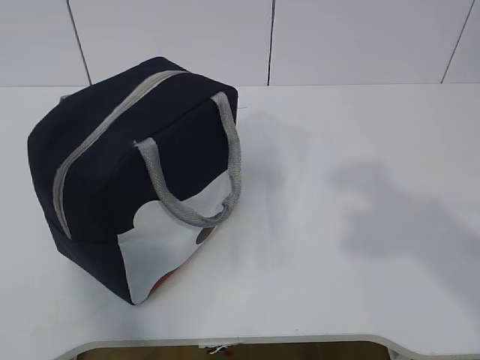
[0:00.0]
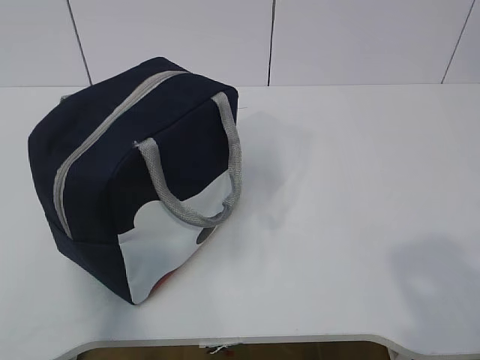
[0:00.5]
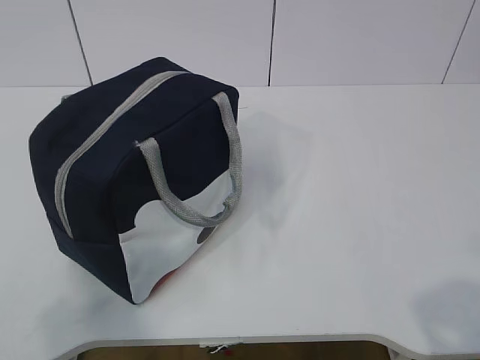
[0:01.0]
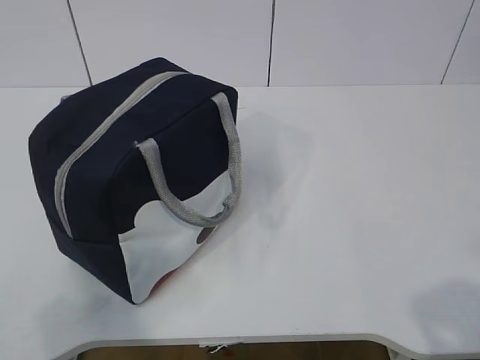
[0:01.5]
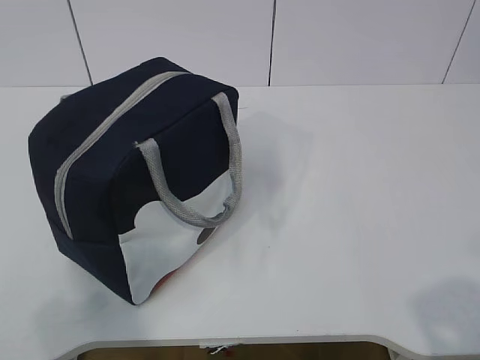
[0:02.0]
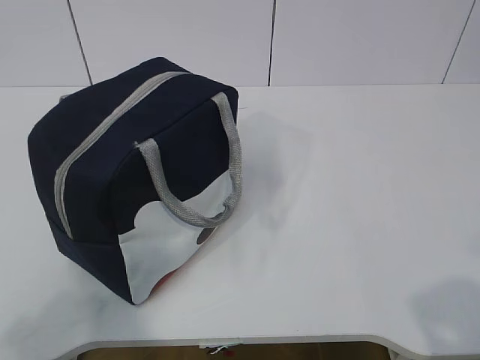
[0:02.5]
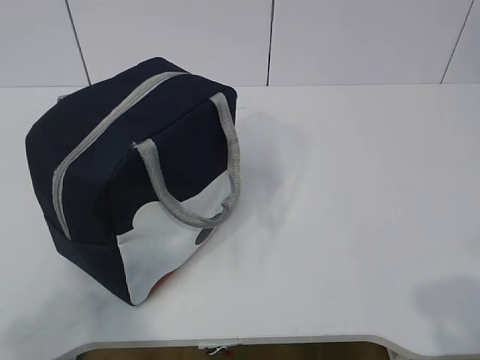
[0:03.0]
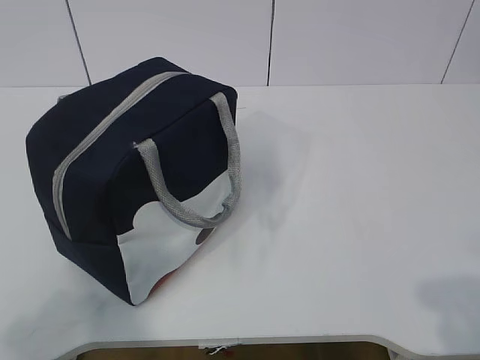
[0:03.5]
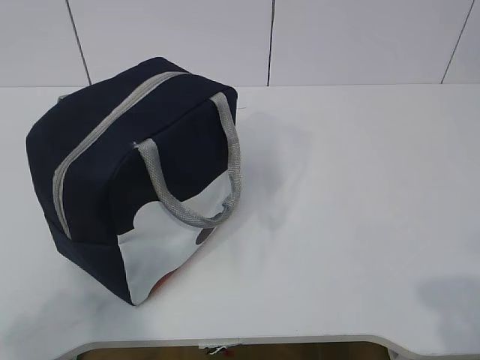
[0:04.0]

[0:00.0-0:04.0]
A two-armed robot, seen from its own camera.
0:00.0 to 0:02.0: The grippers both shift downward and backward by about 15 cm.
